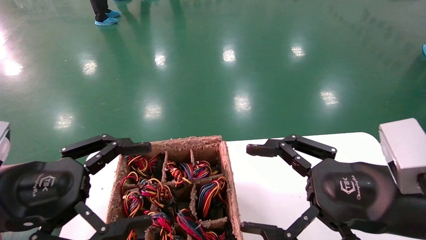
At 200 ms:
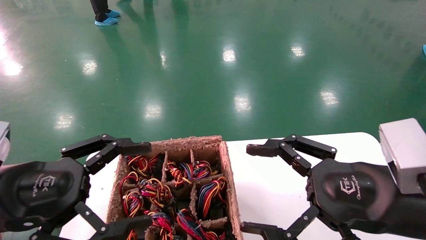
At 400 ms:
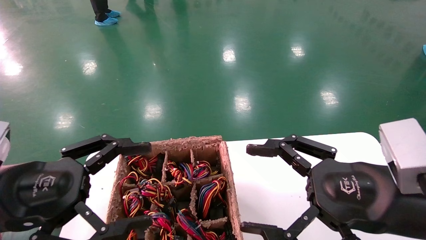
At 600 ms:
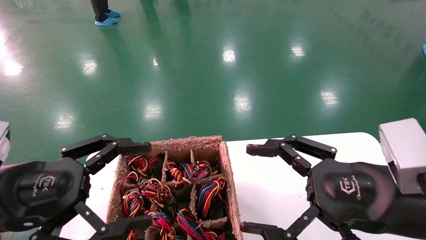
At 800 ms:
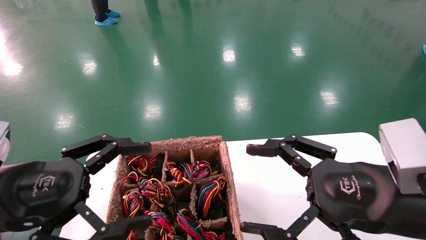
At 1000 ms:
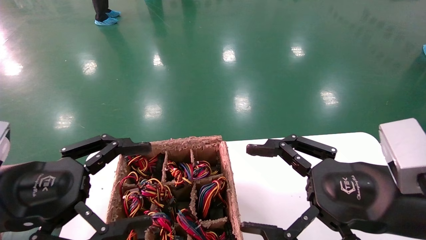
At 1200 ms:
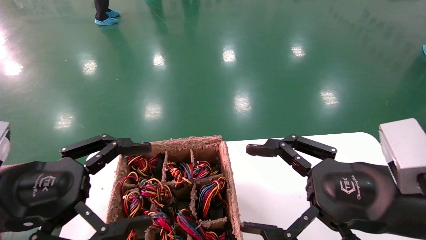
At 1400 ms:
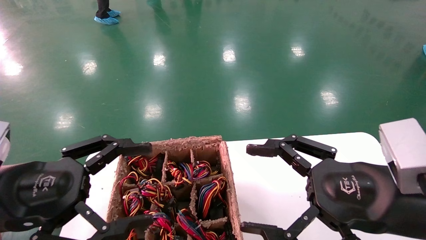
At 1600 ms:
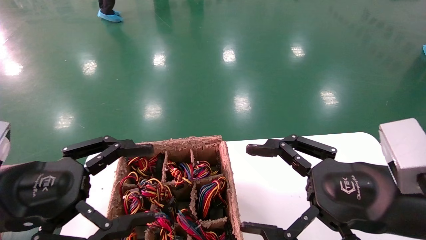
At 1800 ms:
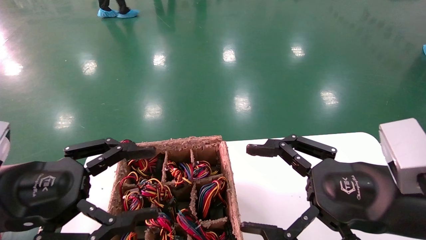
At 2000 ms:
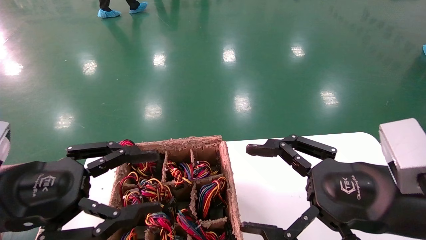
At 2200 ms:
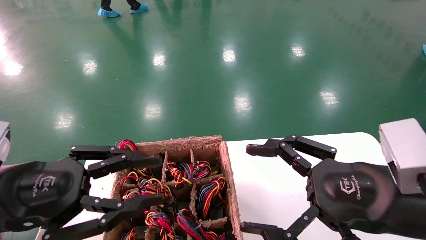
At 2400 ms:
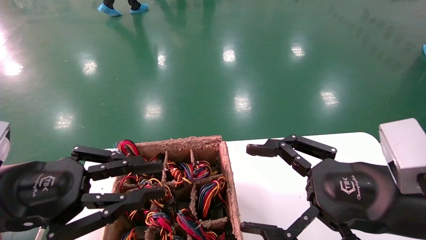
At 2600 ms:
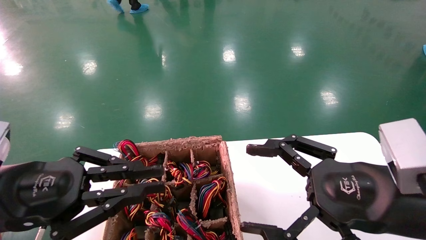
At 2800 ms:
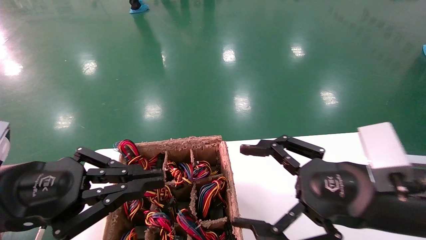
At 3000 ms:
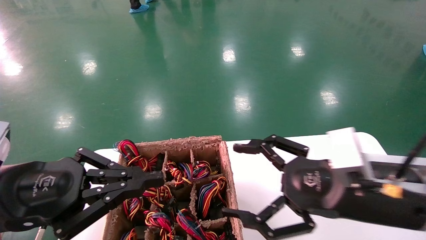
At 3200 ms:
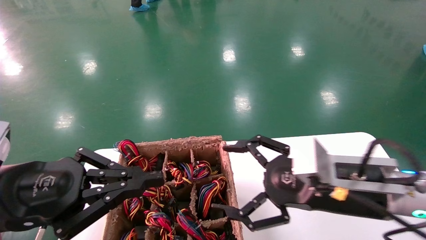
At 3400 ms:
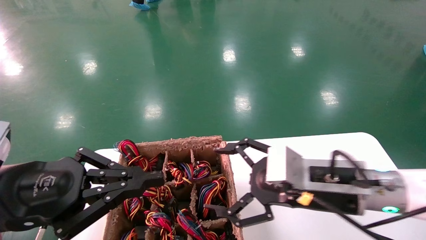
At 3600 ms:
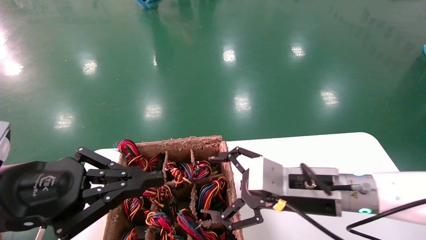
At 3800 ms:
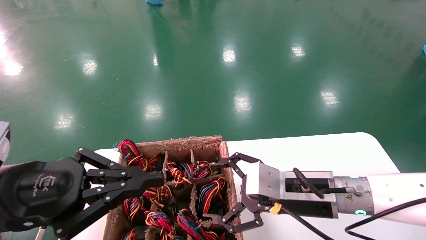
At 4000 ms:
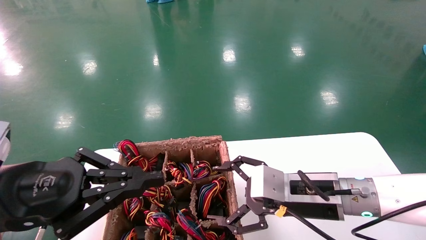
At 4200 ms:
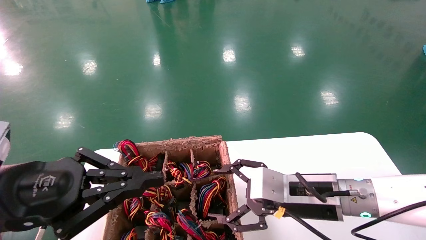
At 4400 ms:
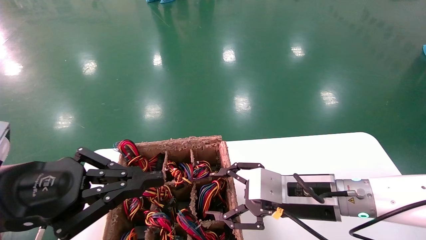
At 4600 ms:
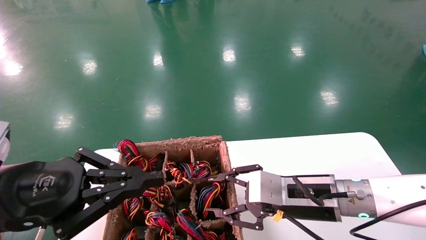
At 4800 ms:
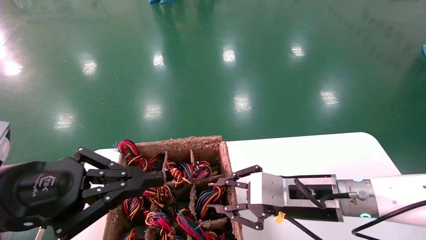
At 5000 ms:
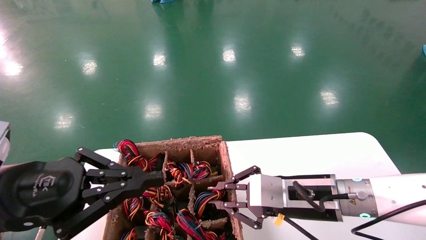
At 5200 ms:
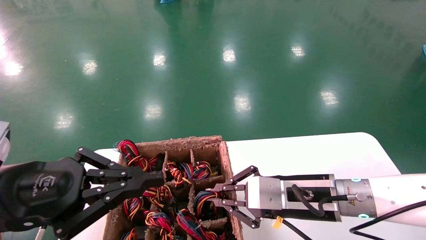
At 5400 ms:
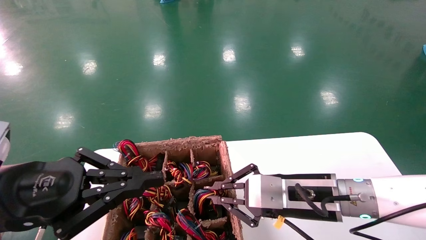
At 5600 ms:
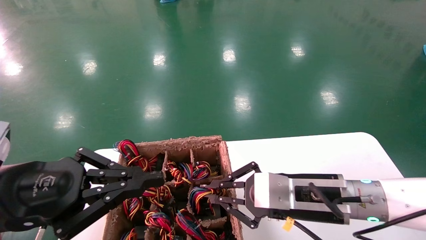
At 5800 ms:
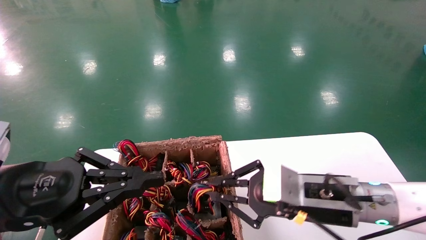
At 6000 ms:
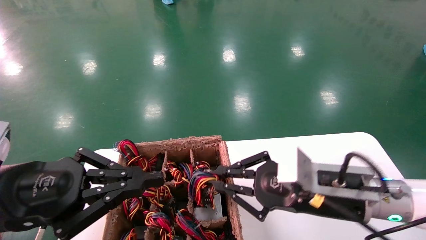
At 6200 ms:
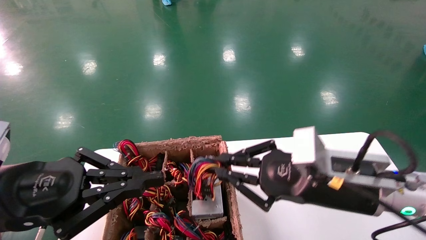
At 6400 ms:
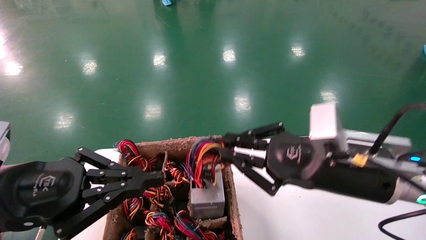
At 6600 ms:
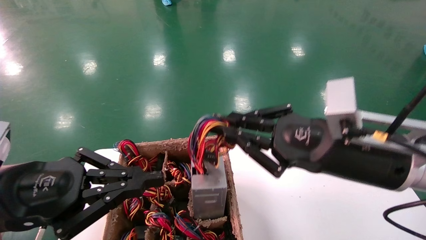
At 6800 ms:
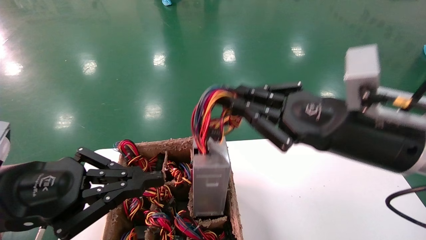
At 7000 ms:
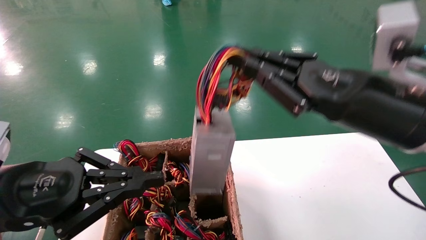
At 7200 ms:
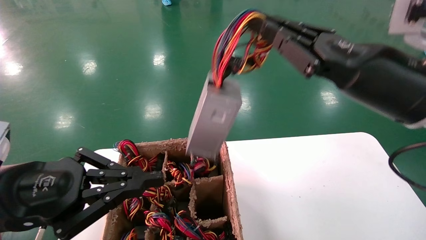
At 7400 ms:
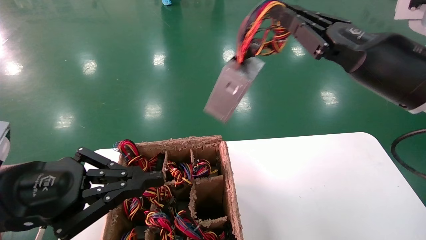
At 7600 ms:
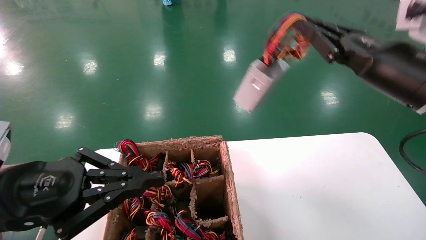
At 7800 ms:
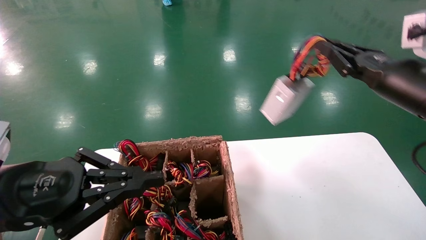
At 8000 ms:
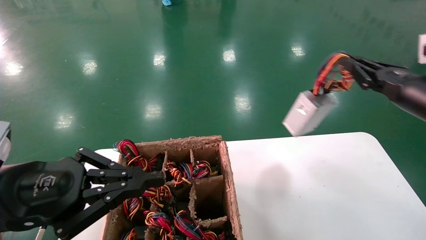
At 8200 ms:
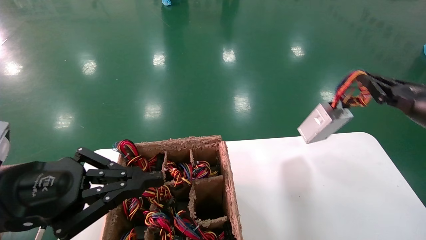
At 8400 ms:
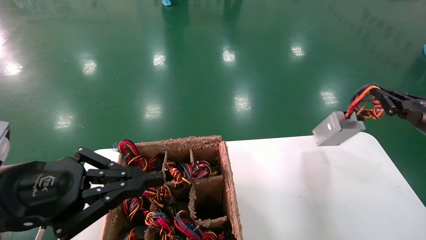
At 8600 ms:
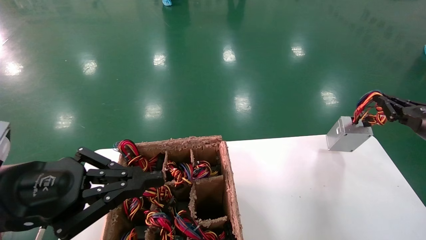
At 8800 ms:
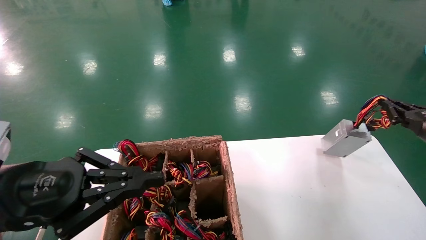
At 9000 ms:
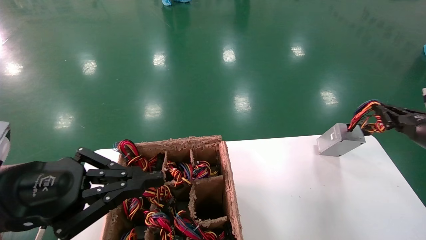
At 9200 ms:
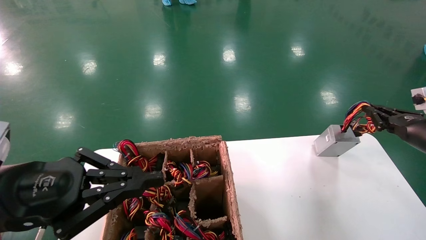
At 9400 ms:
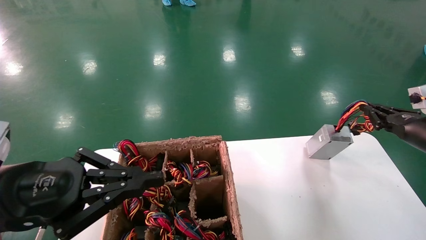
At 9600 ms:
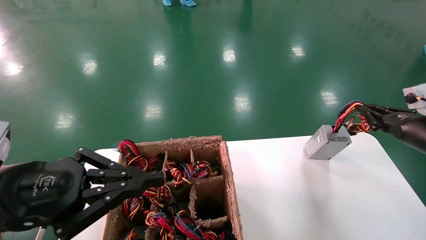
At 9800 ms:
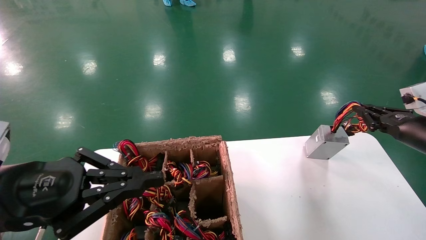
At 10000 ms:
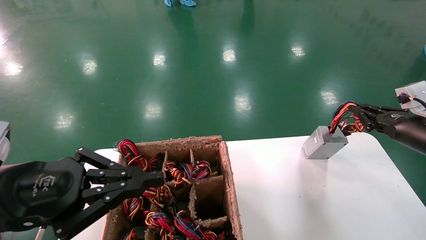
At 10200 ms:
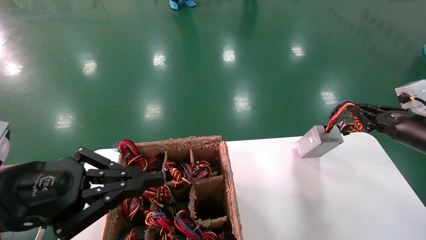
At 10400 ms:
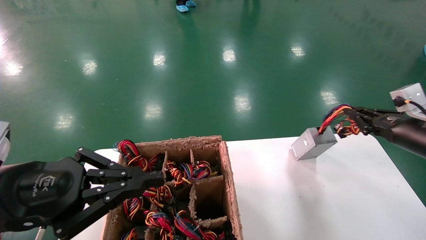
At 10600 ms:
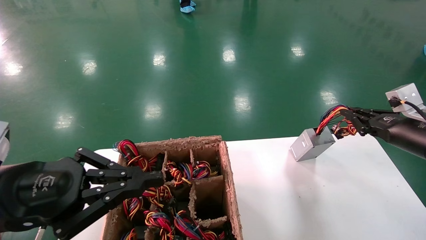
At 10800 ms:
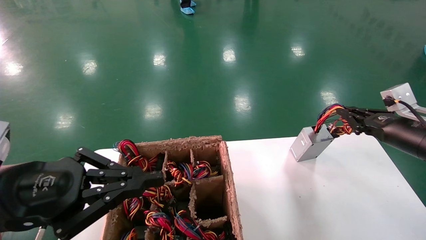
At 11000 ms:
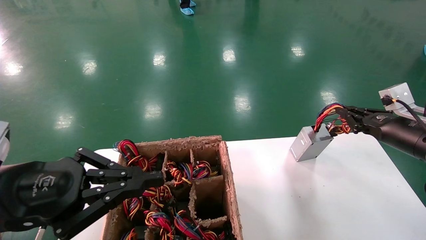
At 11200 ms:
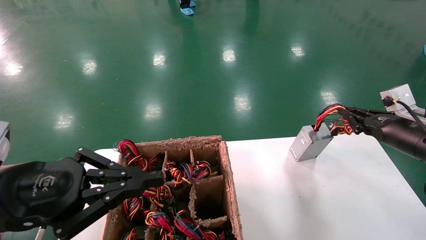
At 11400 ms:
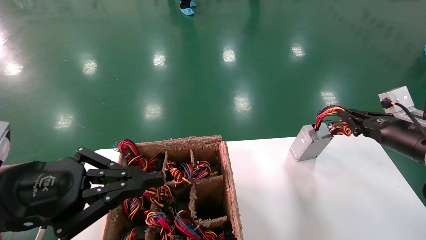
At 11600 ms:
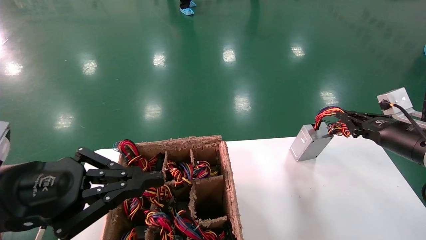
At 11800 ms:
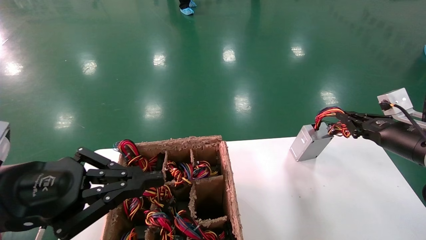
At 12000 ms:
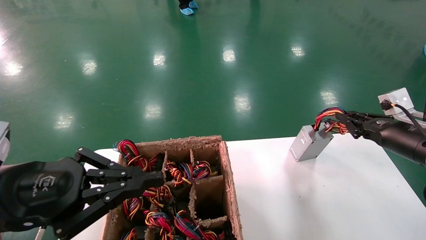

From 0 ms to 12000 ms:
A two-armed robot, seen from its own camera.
Step, from 3000 ms to 5000 ms: Grab the main unit power supply from the containment box.
From 0 ms to 1600 ms: The two grippers keep their place.
From 1600 ms to 3000 ms: The left gripper closes up.
From 3000 ms to 4400 ms: The right gripper shifts approximately 10 cm forward and downward.
From 4400 ms to 6000 ms: The right gripper closes up.
From 6000 ms to 7600 ms: The right gripper is displaced upward and to the right by roughly 15 cm.
From 7600 ms to 9000 ms: The right gripper shifts roughly 20 cm to the right and downward.
From 9000 ms to 12000 ms: The grippers move only a little.

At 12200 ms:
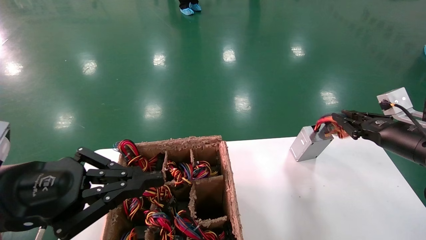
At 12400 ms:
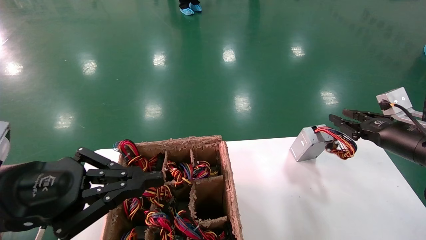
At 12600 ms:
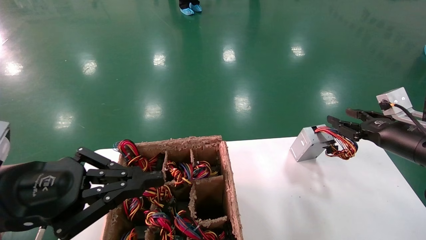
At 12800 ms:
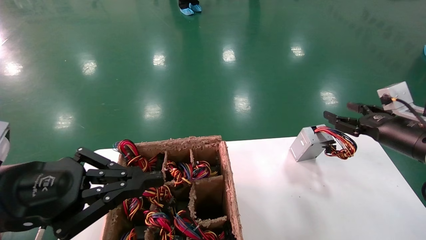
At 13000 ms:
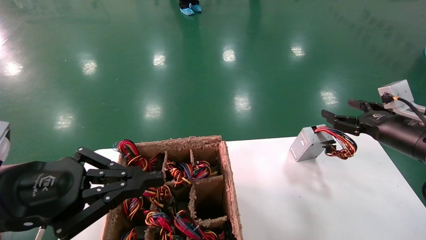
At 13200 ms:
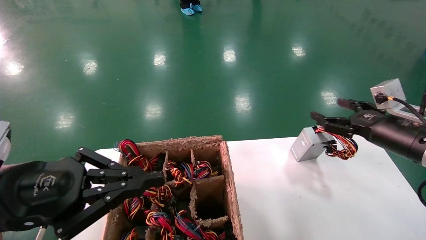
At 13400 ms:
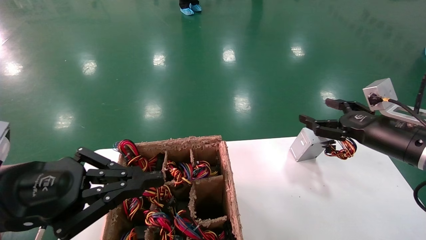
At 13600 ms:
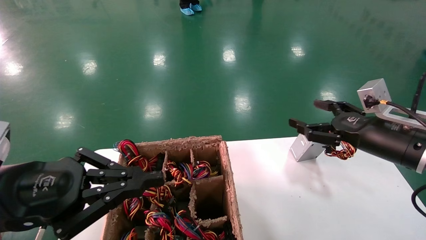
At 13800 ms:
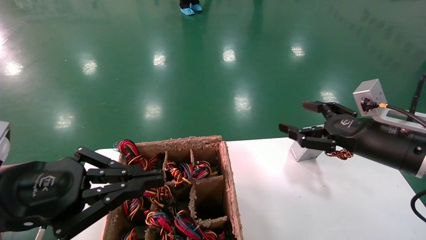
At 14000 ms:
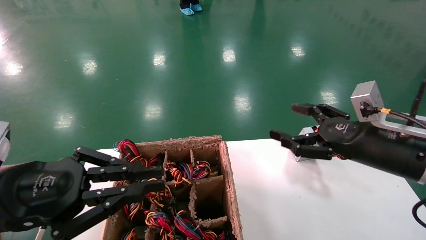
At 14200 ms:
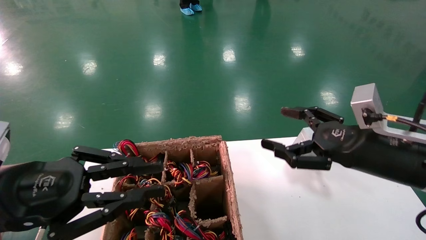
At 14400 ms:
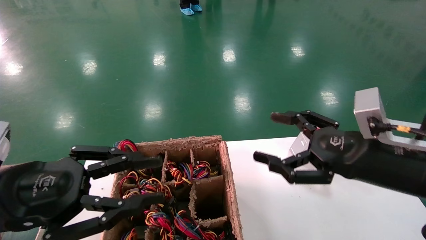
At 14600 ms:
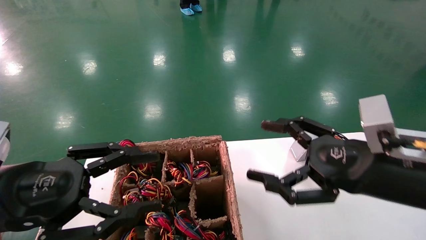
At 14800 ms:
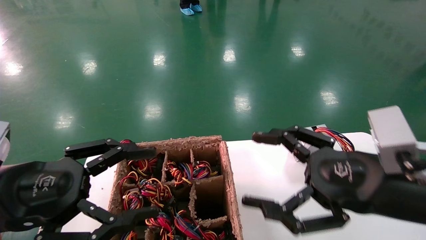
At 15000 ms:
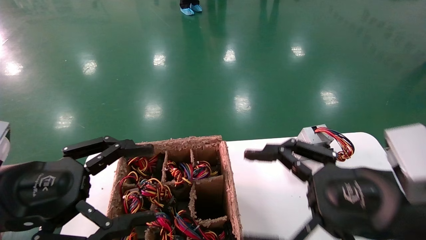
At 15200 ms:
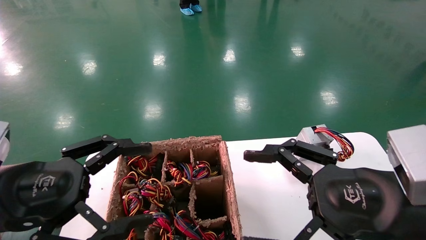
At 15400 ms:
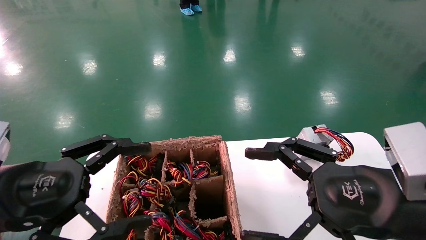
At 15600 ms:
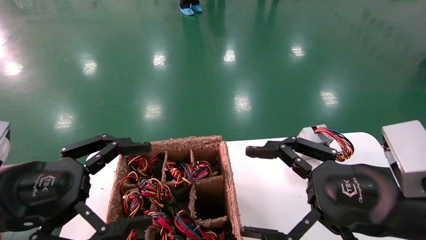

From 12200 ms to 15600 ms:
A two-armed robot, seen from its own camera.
From 12200 ms to 13800 ms: The right gripper travels to the left and backward by approximately 10 cm, and opens up.
From 13800 ms to 15600 ms: The left gripper opens up, while the right gripper moves backward and to the left, some 15 cm.
